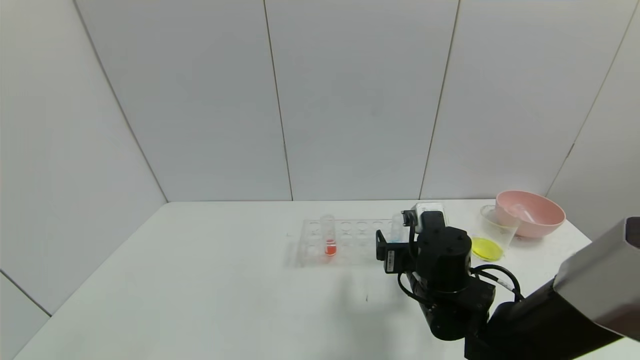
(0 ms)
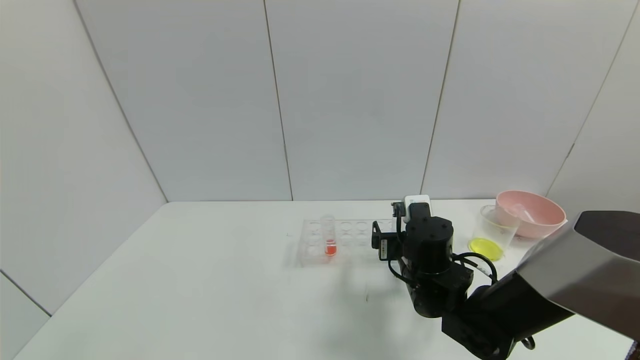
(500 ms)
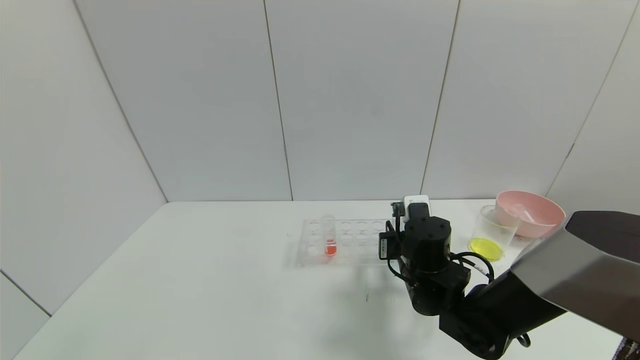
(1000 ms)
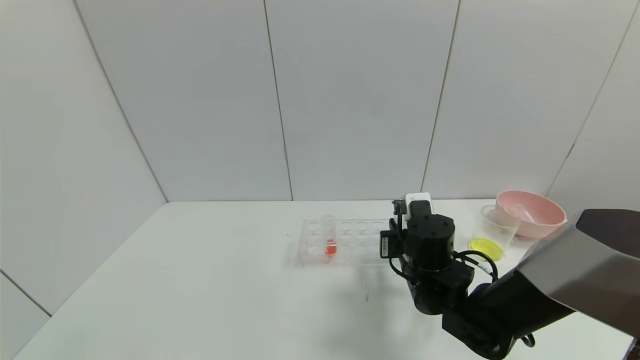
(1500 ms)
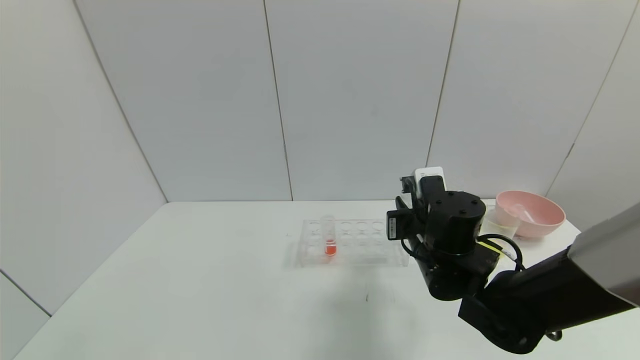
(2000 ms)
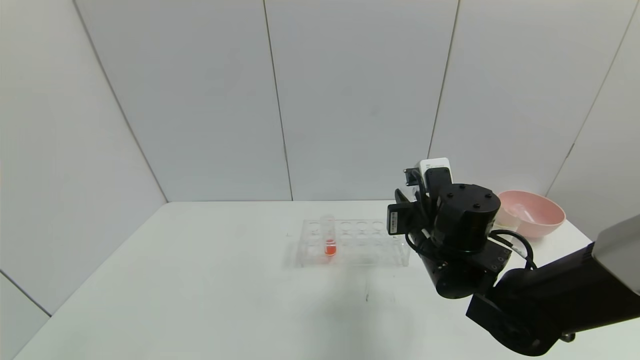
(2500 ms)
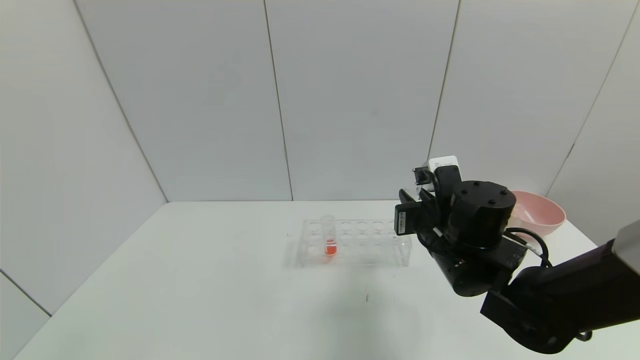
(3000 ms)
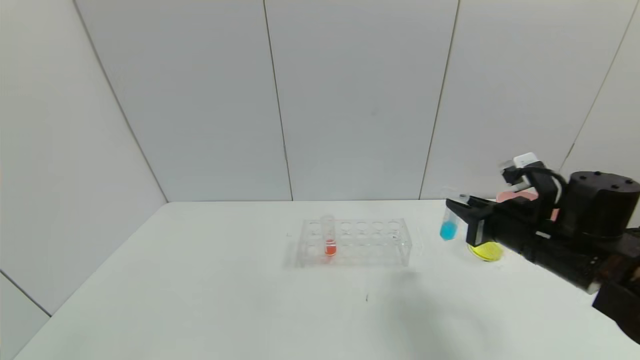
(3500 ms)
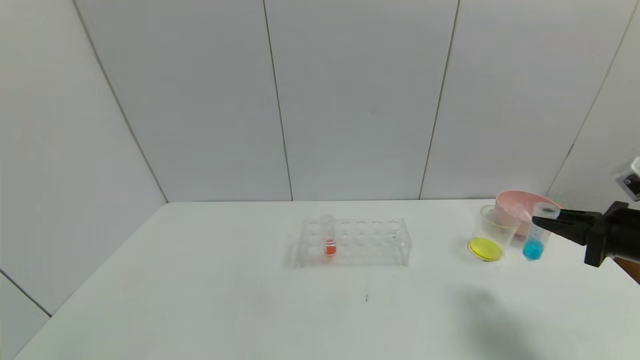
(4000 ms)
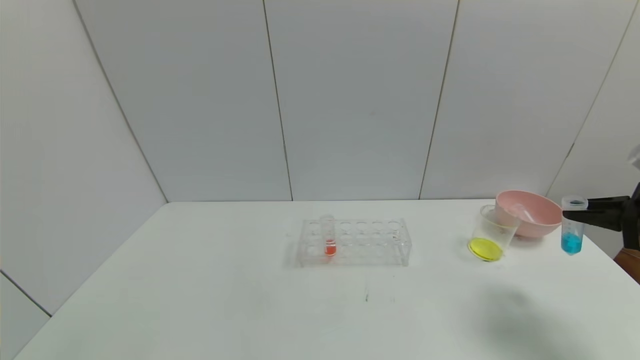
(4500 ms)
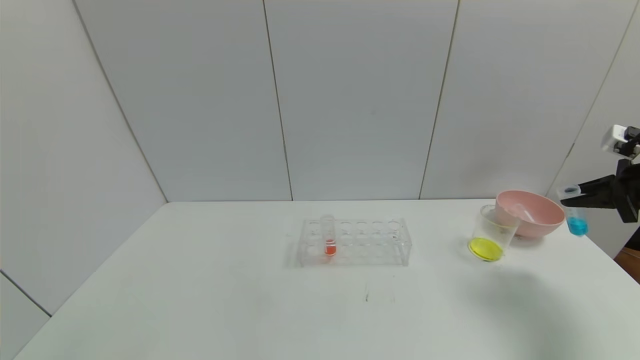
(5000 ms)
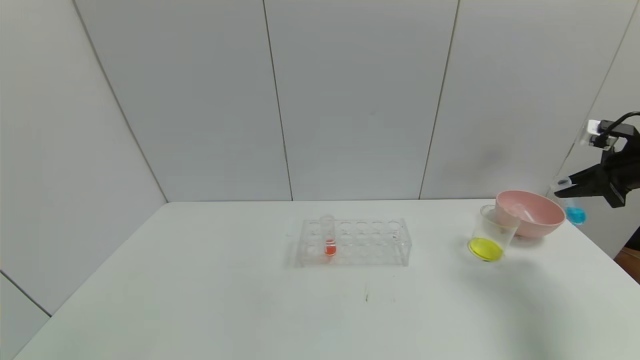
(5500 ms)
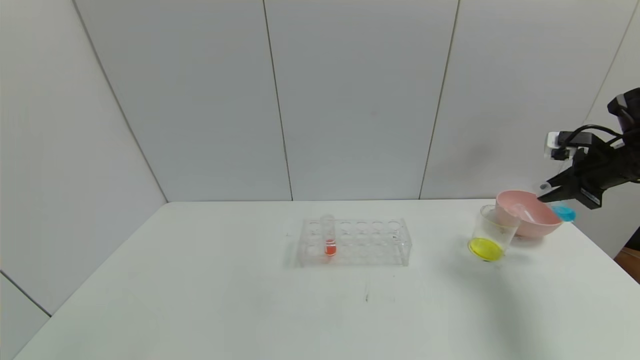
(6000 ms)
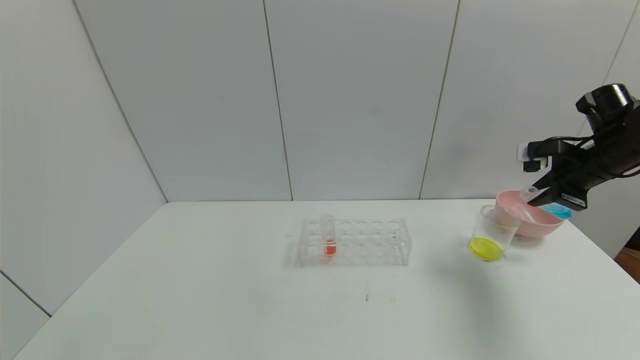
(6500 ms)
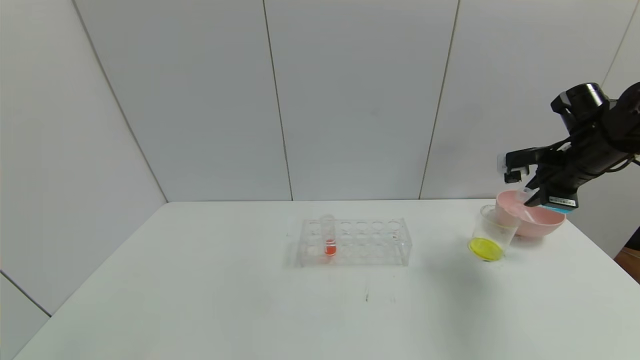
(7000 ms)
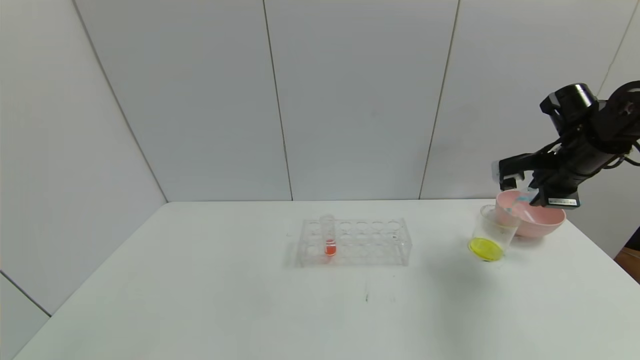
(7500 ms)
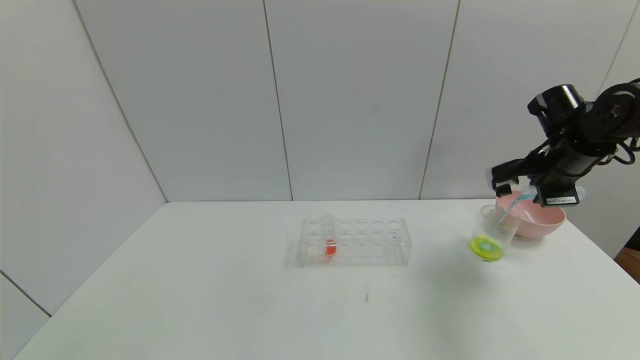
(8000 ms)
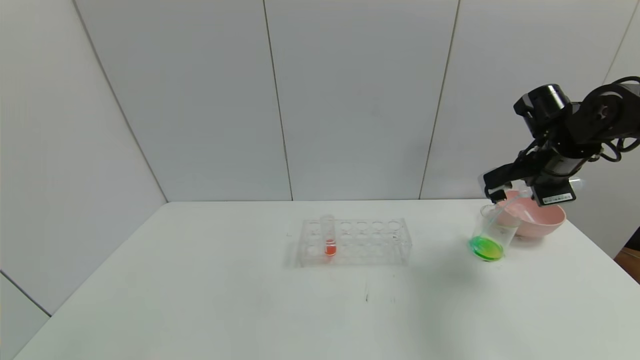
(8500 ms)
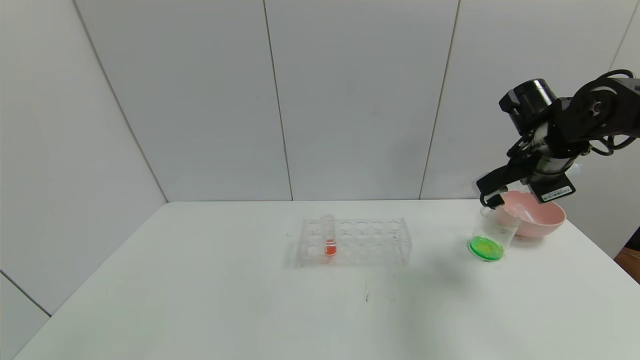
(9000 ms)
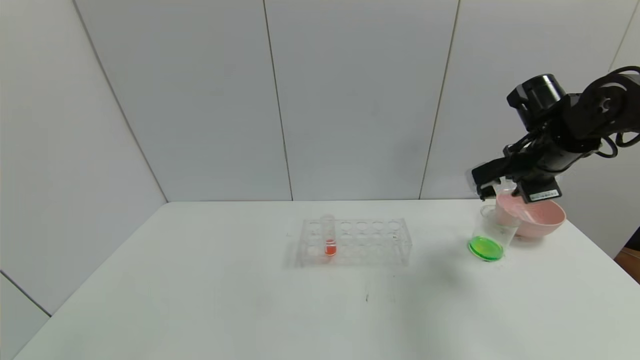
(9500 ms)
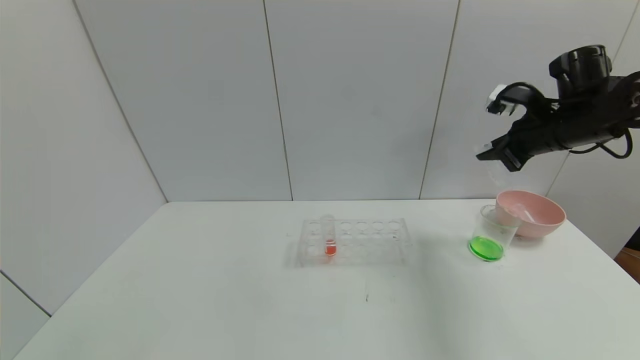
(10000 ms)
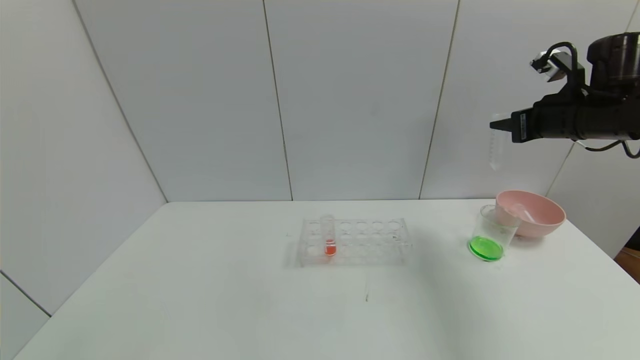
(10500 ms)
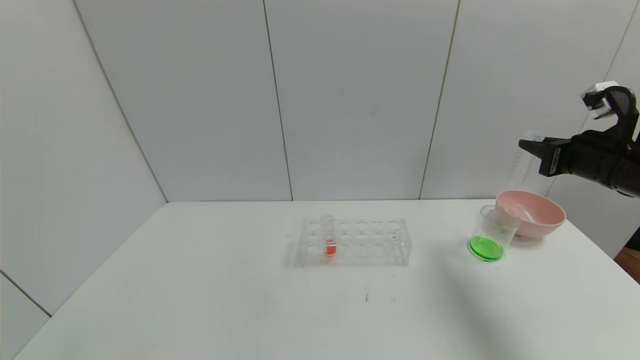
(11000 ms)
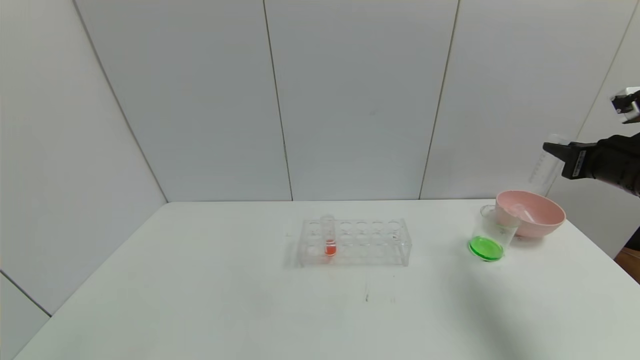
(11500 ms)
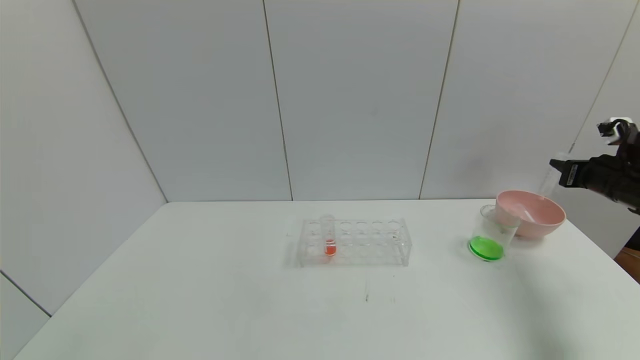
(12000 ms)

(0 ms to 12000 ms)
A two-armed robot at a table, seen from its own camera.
Task of the whole recording: pick up the test tube with yellow pigment and the test tube with blue pigment by grippers and pour them into the beaker.
Step, 1500 ms - 9000 ms: Pour the blue reagent into the graduated cylinder with the right gripper.
0 ms - 2000 ms: The right gripper closes its fingers.
2000 ms - 4000 ms: The right gripper heads to the right, covering about 30 cm.
4000 ms - 6000 ms: The right gripper is displaced forward and upward by approximately 15 cm.
6000 ms - 8000 ms: The right gripper is displaced to the left by some 10 cm.
10000 ms - 12000 ms: The right gripper heads to the right and downward, covering about 15 cm.

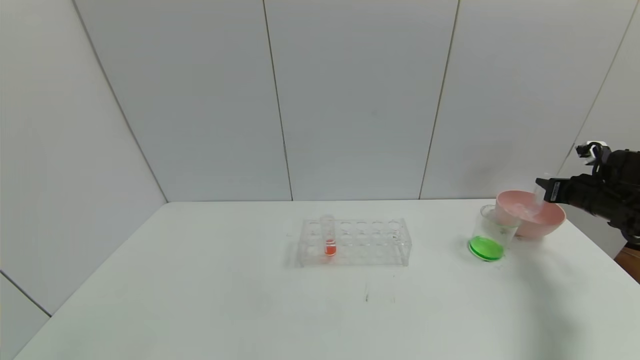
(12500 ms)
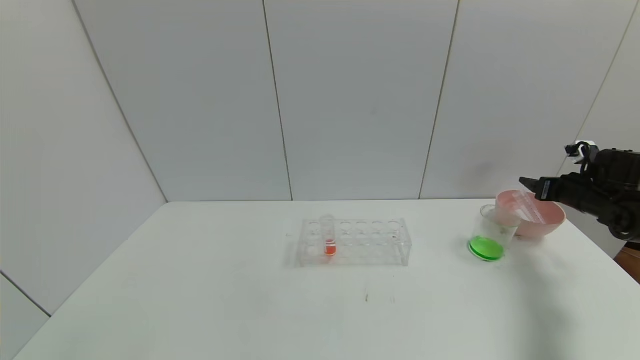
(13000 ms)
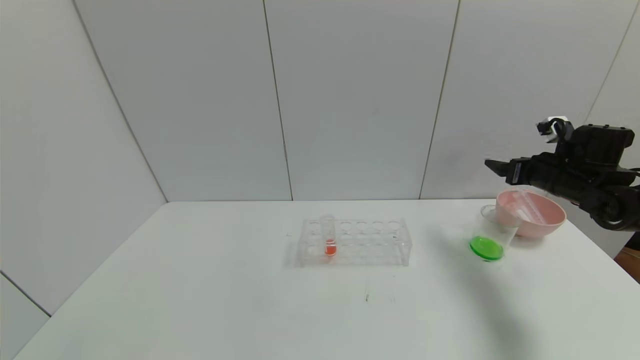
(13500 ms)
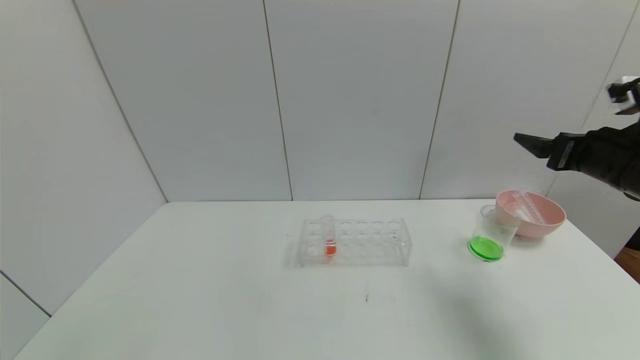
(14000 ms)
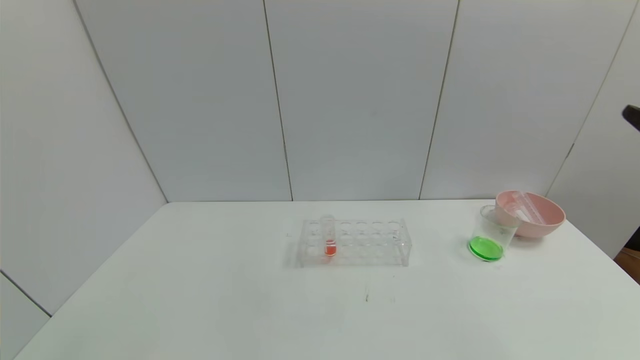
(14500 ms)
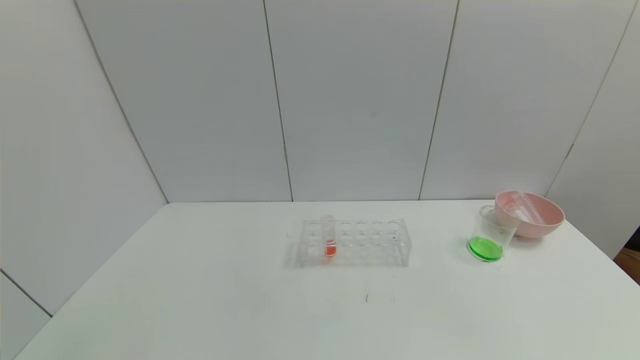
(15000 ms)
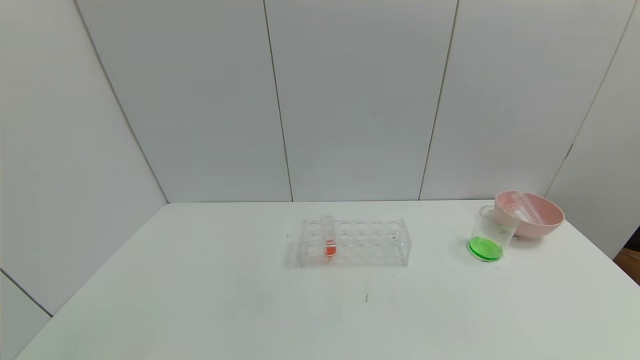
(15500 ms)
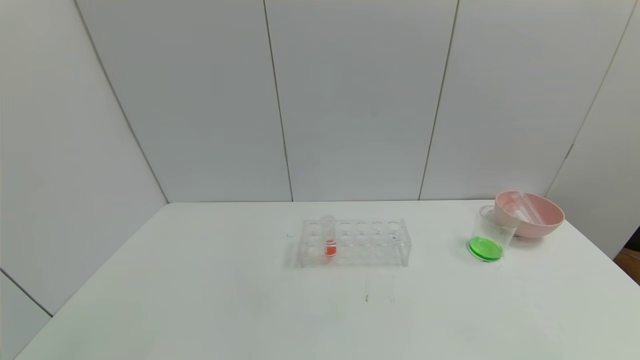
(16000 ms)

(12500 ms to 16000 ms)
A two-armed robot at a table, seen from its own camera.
Task of the whole recording: pick up the test tube with yellow pigment and the test tube with blue pigment by grippers and pour them into the beaker.
12500 ms - 14500 ms: The right gripper goes roughly 35 cm backward, upward and to the left, and opens its fingers.
